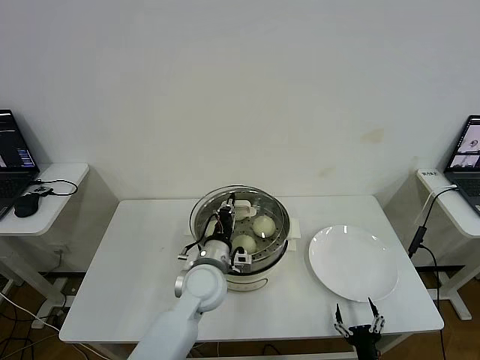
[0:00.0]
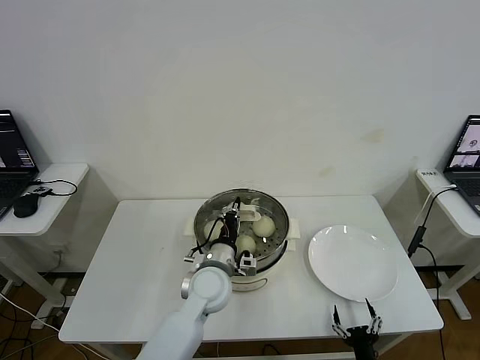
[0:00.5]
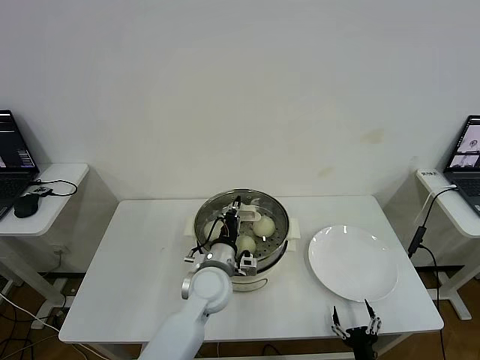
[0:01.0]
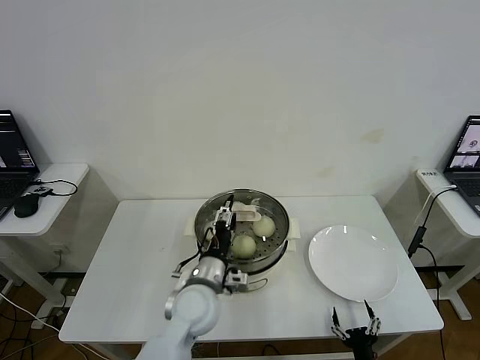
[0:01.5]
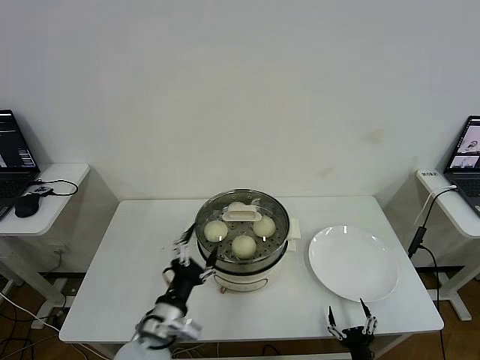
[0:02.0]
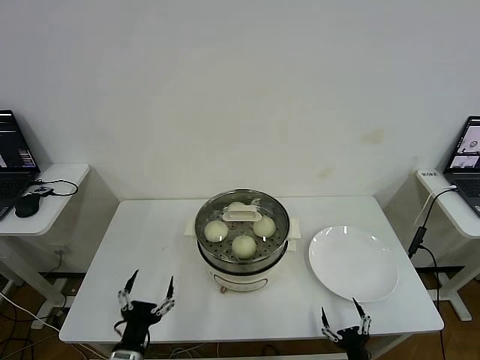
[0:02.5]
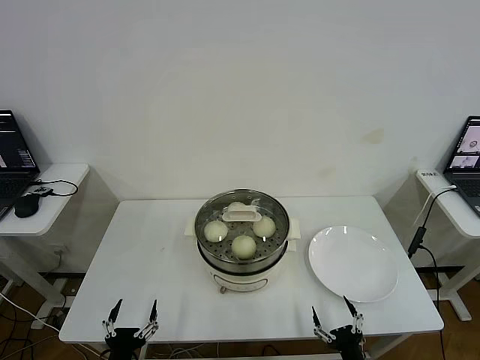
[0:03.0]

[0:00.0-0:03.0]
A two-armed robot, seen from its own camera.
0:00.0 to 0:01.5: The left gripper opens.
0:01.5 to 0:03.0: The left gripper shifts approximately 30 cm backward, to the left and downward.

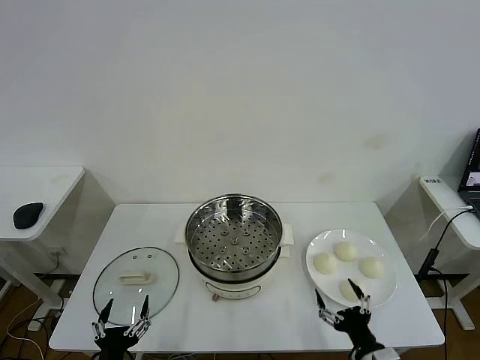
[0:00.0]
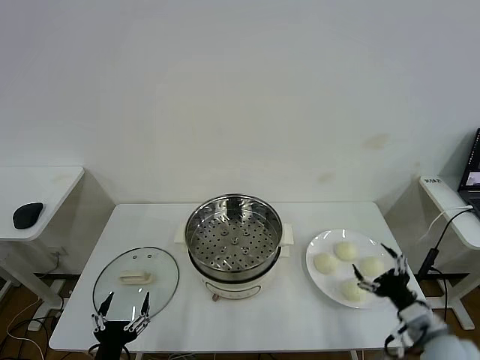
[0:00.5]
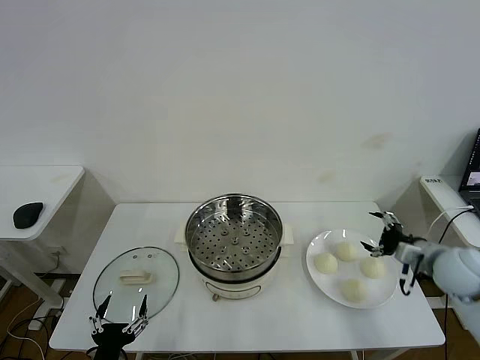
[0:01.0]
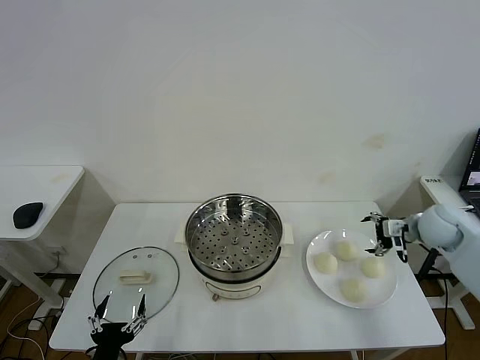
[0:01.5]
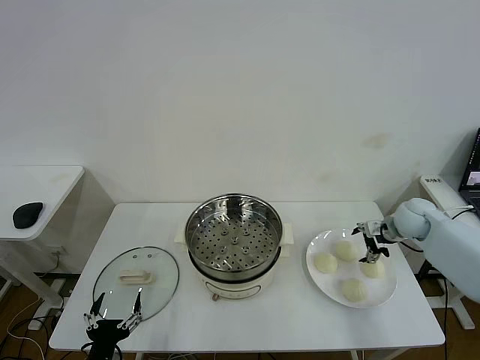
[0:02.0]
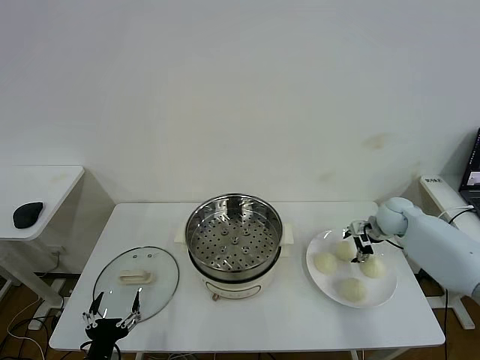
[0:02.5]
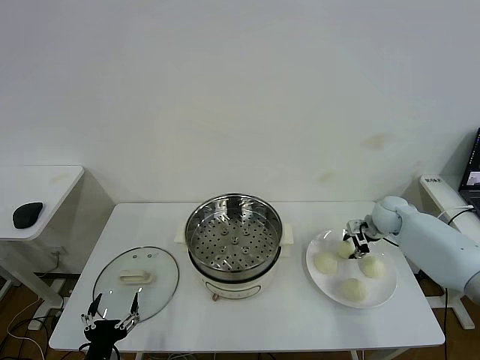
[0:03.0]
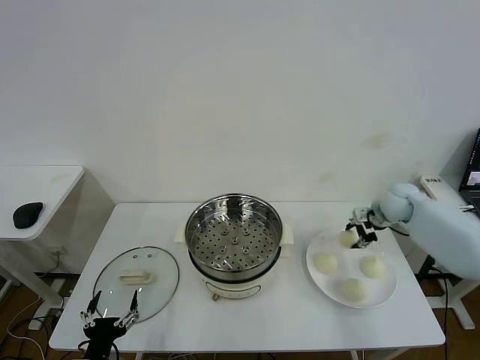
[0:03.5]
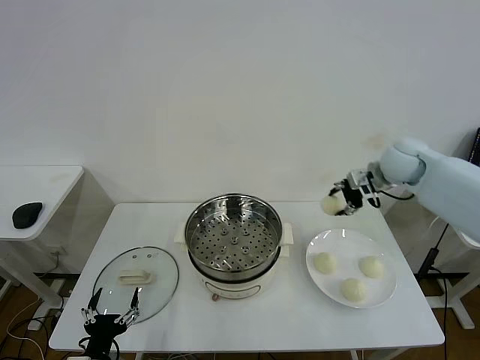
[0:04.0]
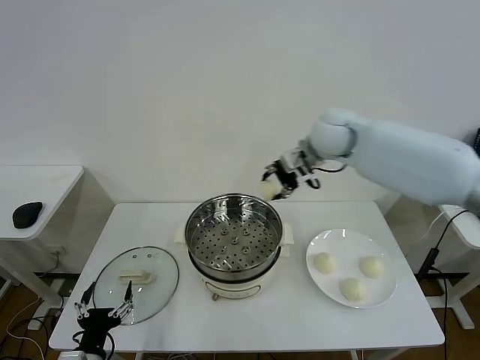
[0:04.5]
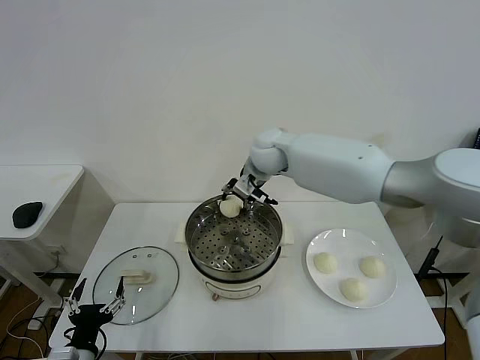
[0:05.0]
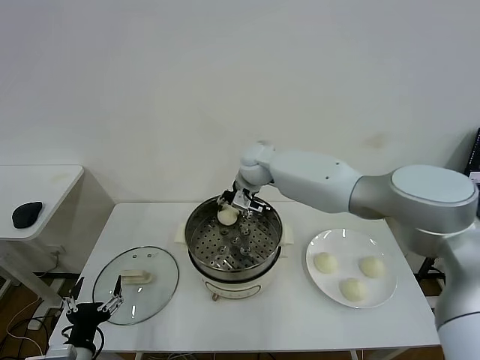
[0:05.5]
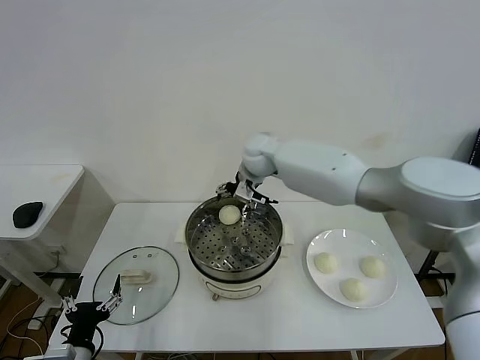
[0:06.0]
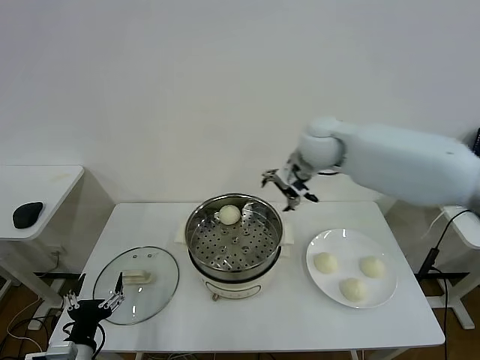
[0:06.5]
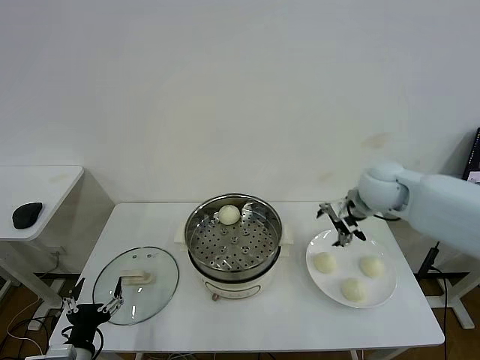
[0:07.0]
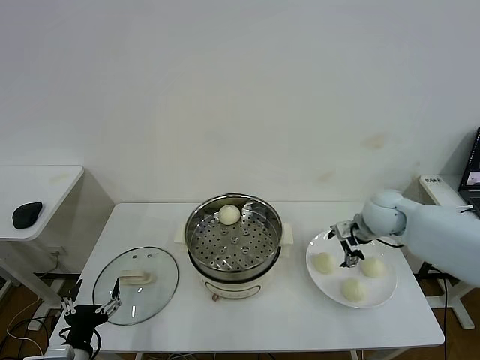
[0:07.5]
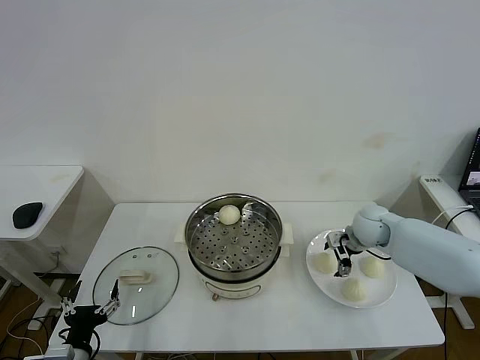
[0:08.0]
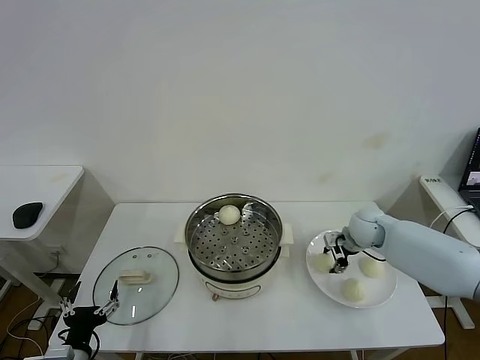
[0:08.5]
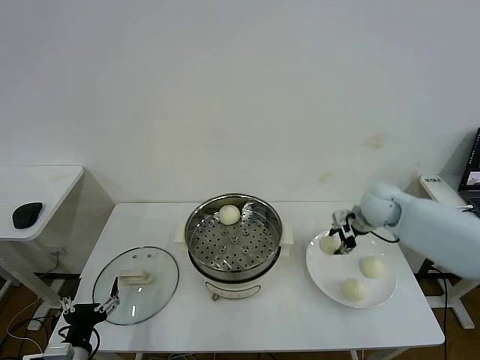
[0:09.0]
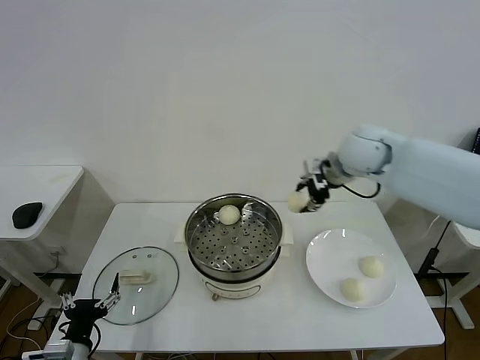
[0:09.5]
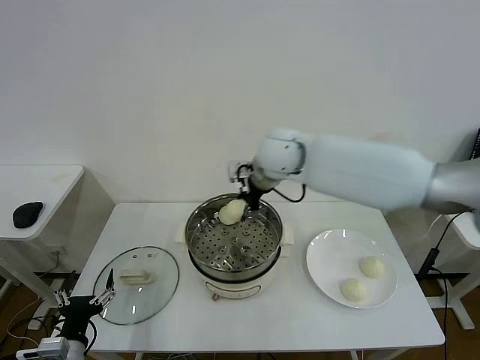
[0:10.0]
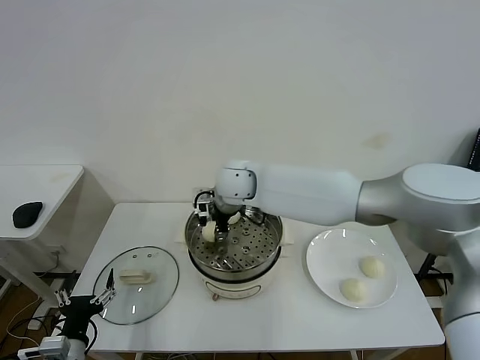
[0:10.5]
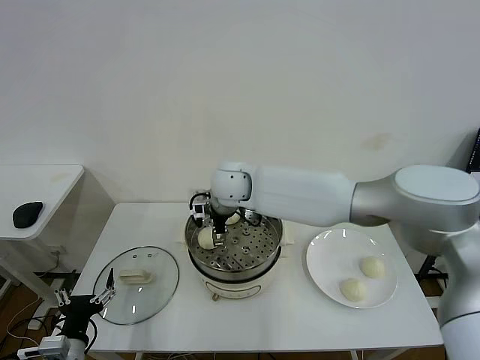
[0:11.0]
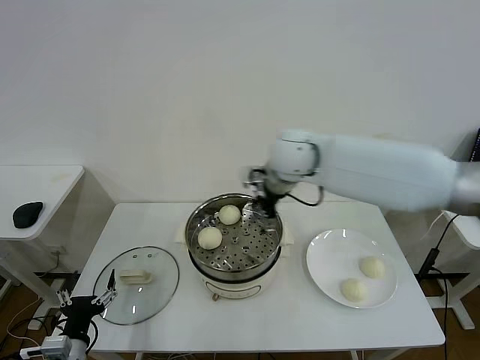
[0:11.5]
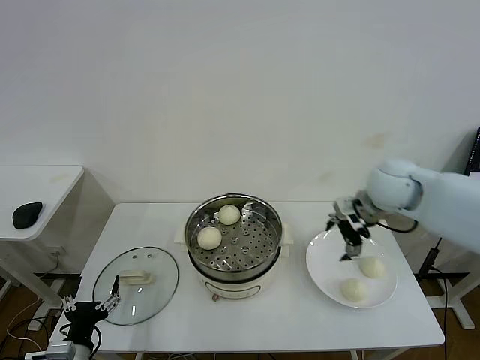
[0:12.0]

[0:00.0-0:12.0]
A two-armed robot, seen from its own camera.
Step, 0:00.0 to 0:02.5: Grasp the baozi in the plate with right gripper.
Step, 0:03.5 to 0:05.5: Place the baozi on the steamer with right gripper.
Step, 0:06.0 to 0:08.5: Grasp the baozi in the plate with right gripper.
Step, 0:09.0 to 0:10.5: Place the baozi on the steamer with right gripper.
0:02.0 to 0:04.0: The right gripper is displaced upward and to the left by roughly 20 cm, and closes.
0:04.0 to 0:06.0: The right gripper is displaced to the left by about 25 cm, and opens its fingers.
0:06.0 to 0:08.0: The right gripper moves to the right and downward, approximately 30 cm.
0:08.0 to 0:10.0: The right gripper moves to the left and upward, roughly 35 cm, and closes up.
0:10.0 to 0:12.0: The right gripper is displaced to the right by roughly 25 cm, and opens its fingers.

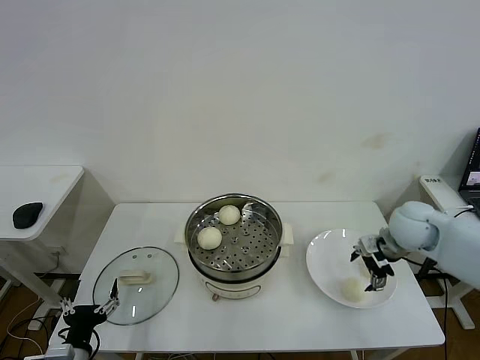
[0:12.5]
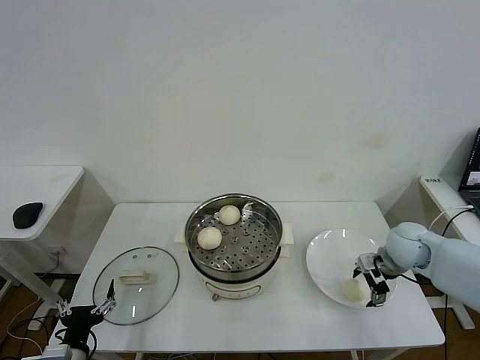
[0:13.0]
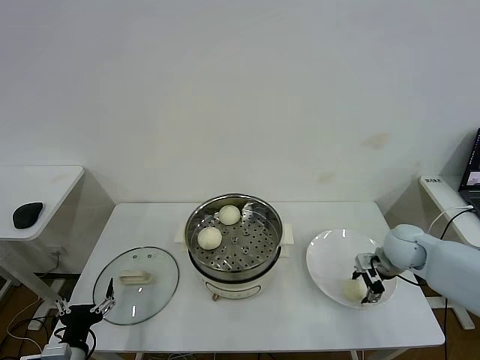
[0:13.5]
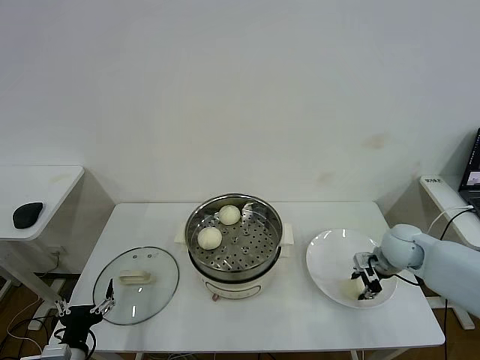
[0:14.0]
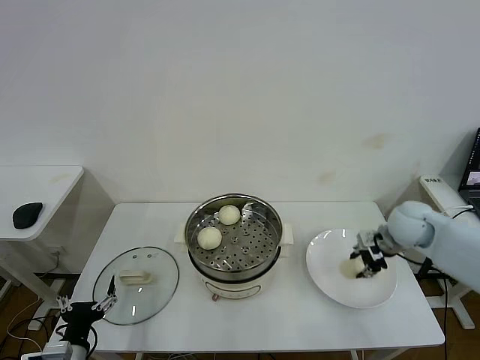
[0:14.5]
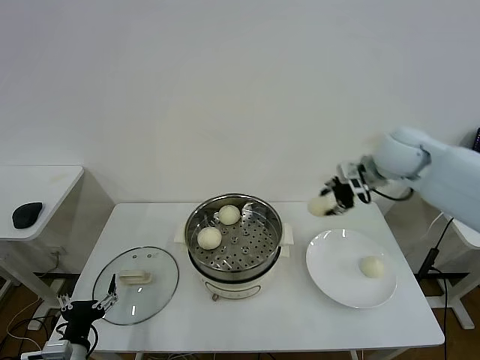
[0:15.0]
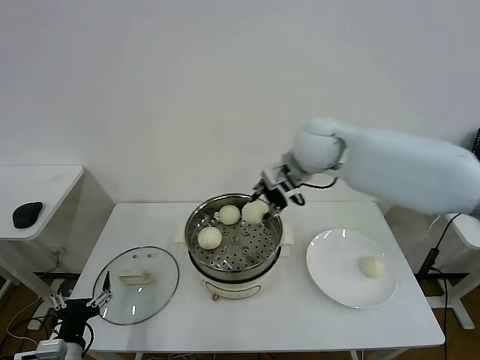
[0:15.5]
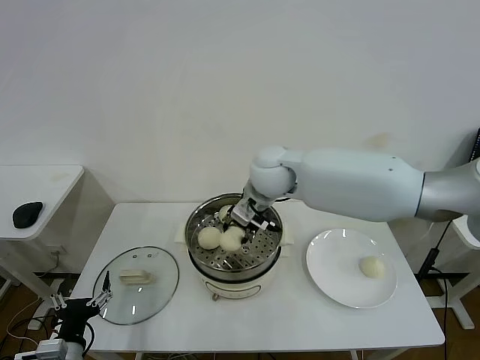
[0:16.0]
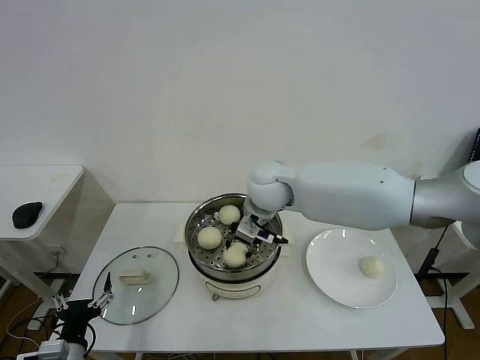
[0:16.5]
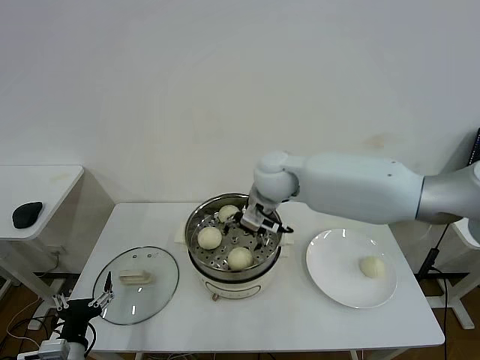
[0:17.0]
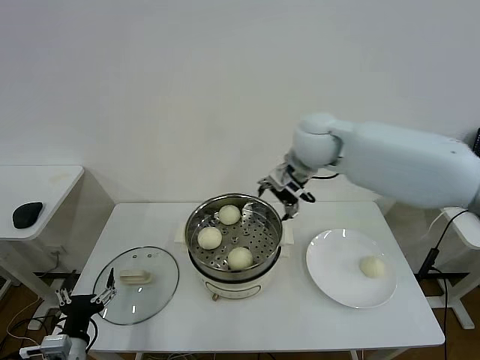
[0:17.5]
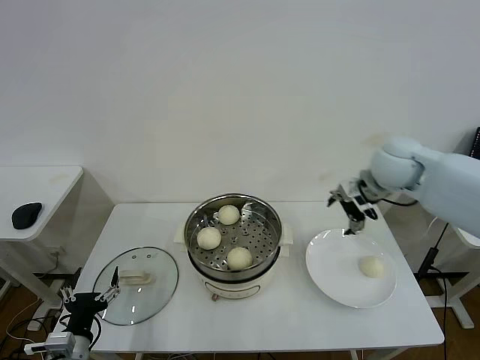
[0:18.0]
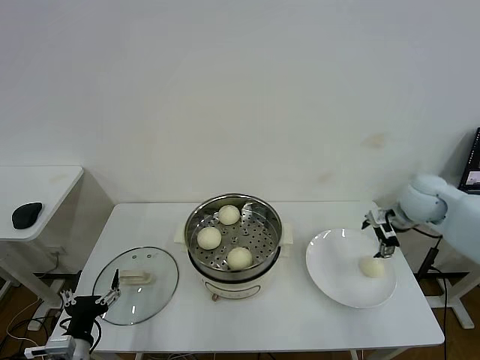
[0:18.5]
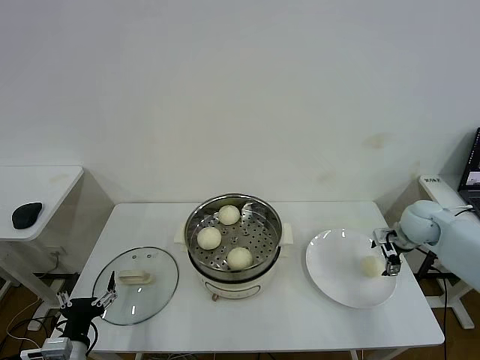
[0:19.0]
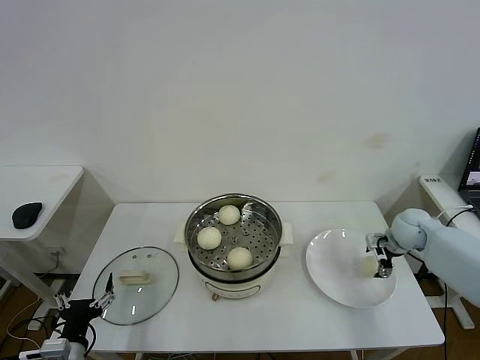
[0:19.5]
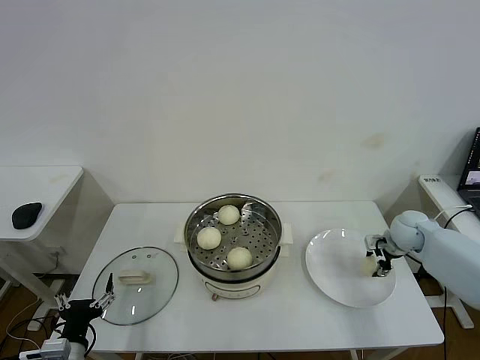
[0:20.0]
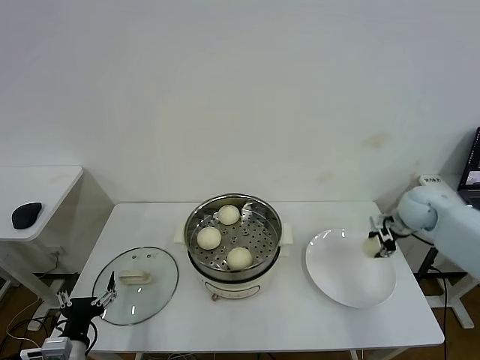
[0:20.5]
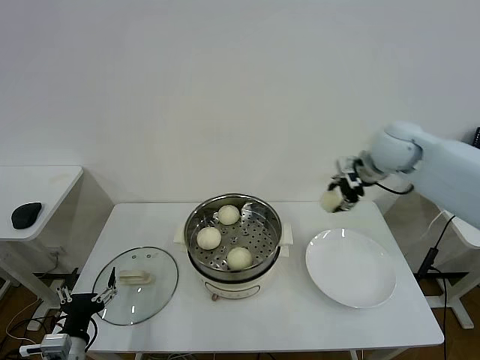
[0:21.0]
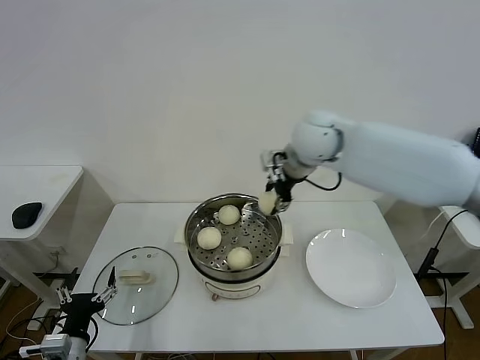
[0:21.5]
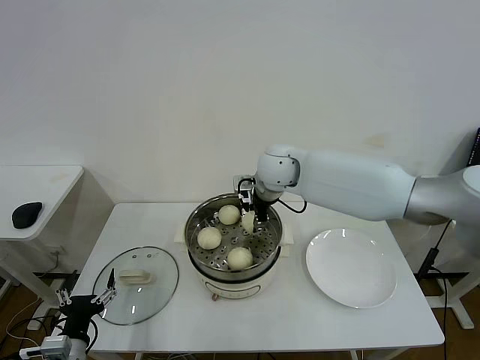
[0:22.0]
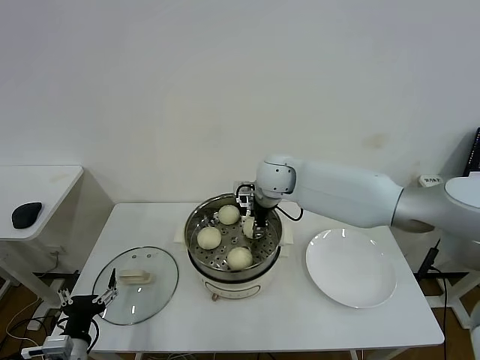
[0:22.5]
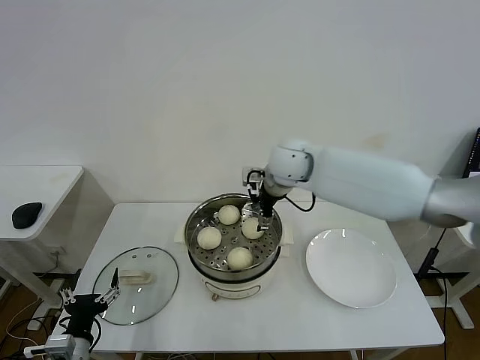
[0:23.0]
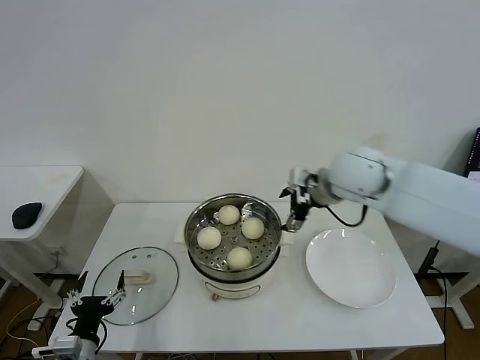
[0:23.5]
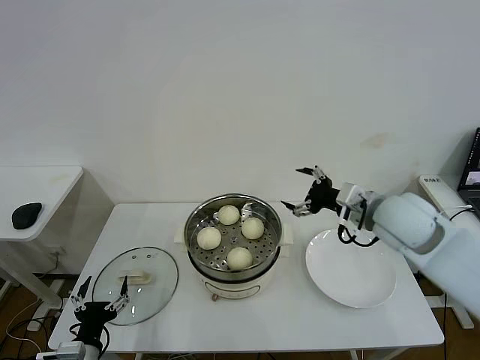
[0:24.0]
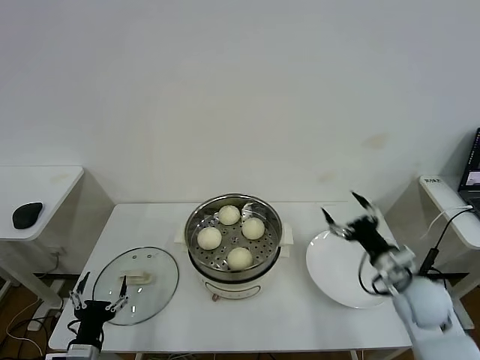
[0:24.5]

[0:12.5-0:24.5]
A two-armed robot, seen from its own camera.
Step, 0:14.0 to 0:16.5: Place the baozi on the steamer with right gripper.
Step, 0:17.0 to 0:20.0: Grasp the baozi in the plate with right gripper.
Step, 0:20.5 to 0:22.5: Place the baozi on the steamer with right gripper.
0:12.5 to 0:14.5: The right gripper reaches roughly 5 cm downward, then returns, and closes its fingers.
0:14.5 to 0:16.5: The right gripper is displaced to the left by approximately 30 cm.
0:16.5 to 0:18.5: The right gripper shifts approximately 35 cm to the right, and opens.
0:18.5 to 0:20.5: The right gripper travels downward and back again, roughly 10 cm each way, and closes up.
0:20.5 to 0:22.5: The right gripper is displaced to the left by roughly 35 cm.
0:22.5 to 0:24.5: The right gripper goes approximately 40 cm to the right, backward and downward, and opens its fingers.
